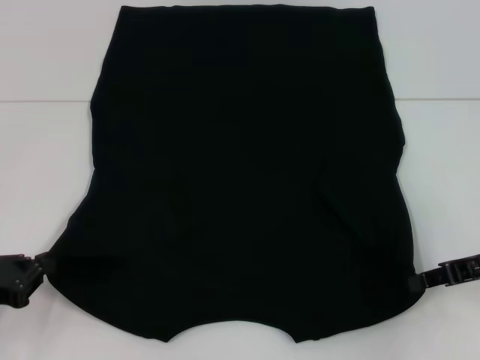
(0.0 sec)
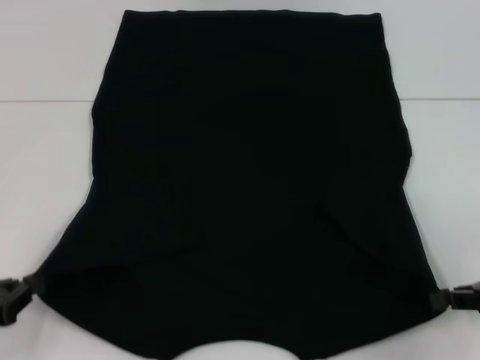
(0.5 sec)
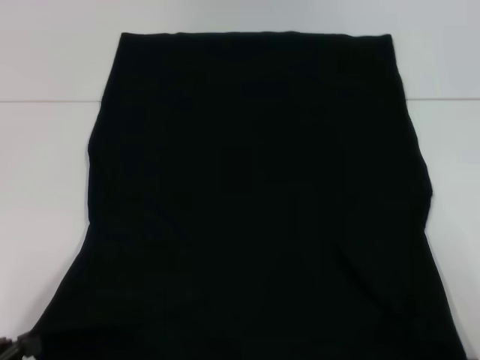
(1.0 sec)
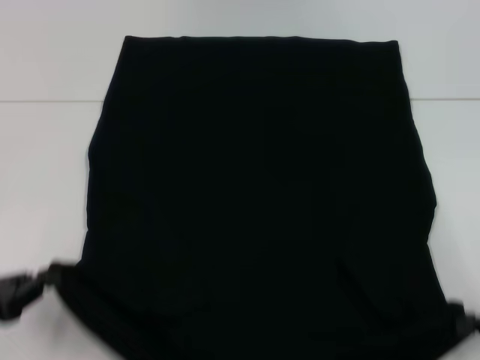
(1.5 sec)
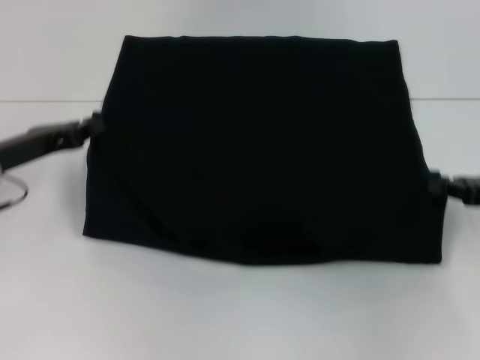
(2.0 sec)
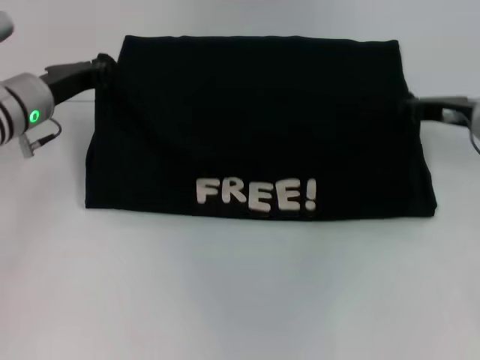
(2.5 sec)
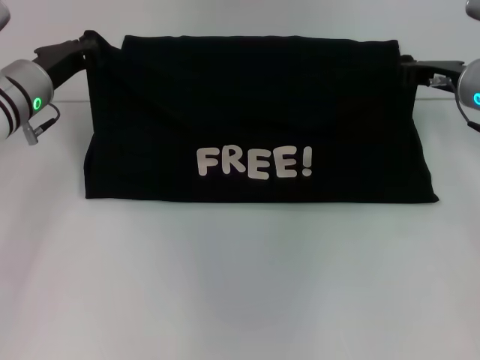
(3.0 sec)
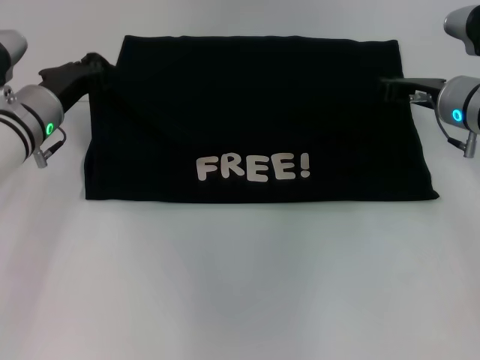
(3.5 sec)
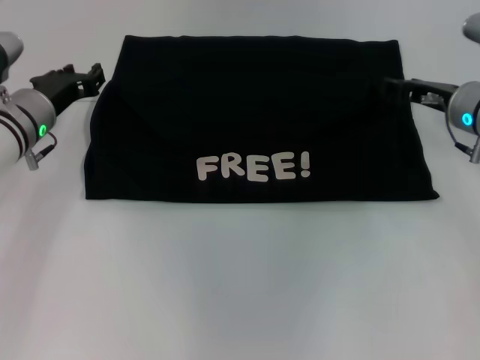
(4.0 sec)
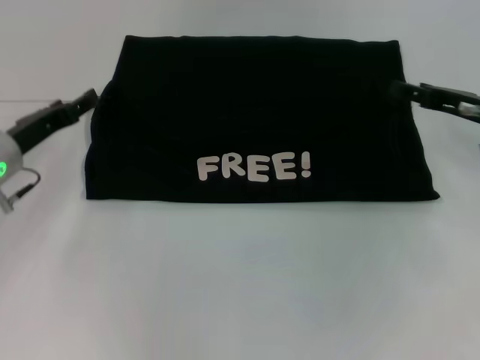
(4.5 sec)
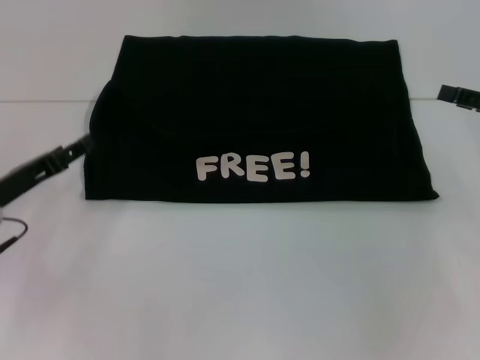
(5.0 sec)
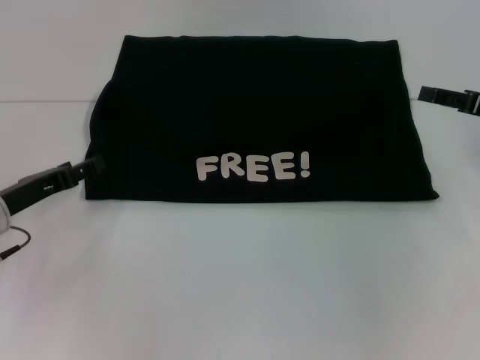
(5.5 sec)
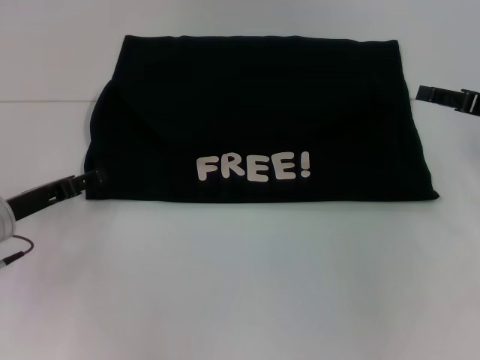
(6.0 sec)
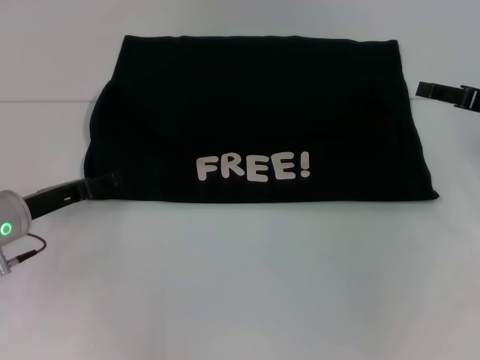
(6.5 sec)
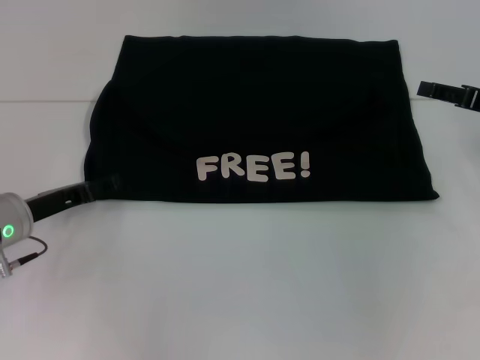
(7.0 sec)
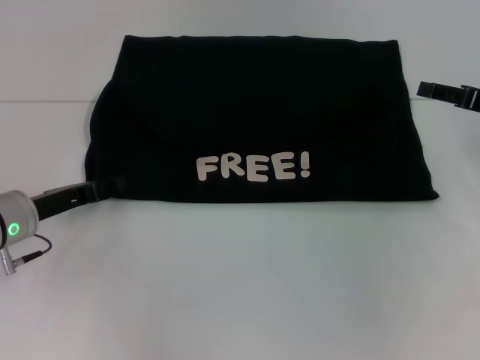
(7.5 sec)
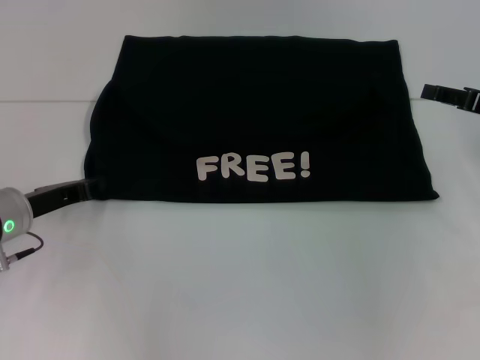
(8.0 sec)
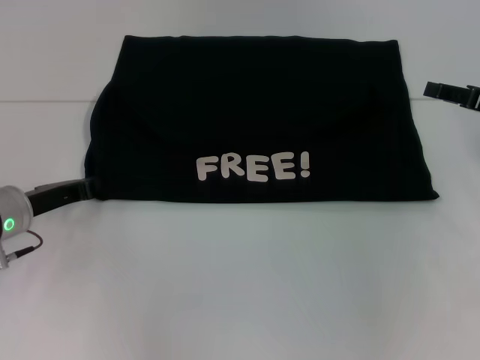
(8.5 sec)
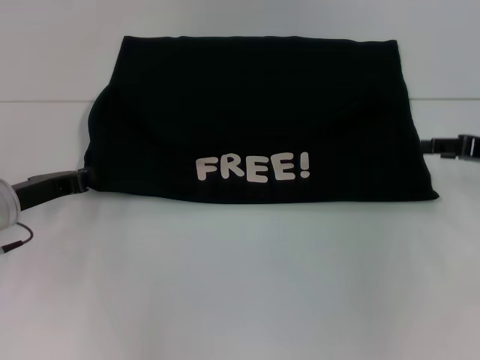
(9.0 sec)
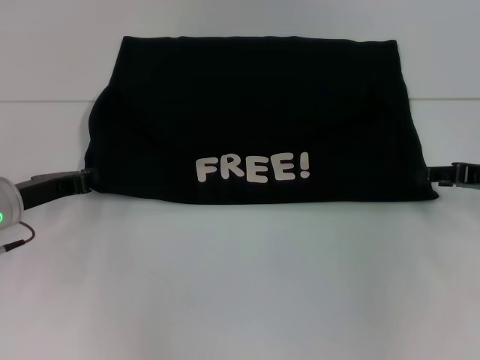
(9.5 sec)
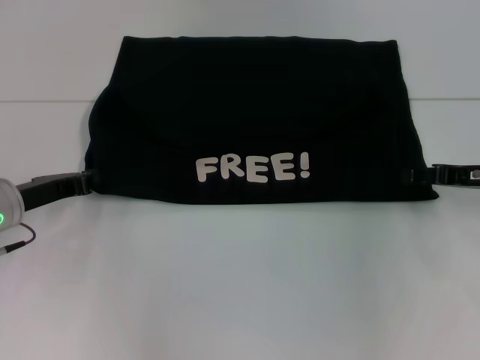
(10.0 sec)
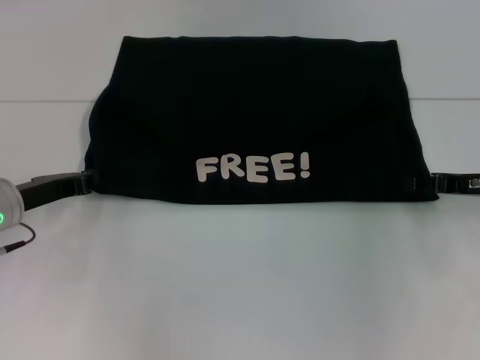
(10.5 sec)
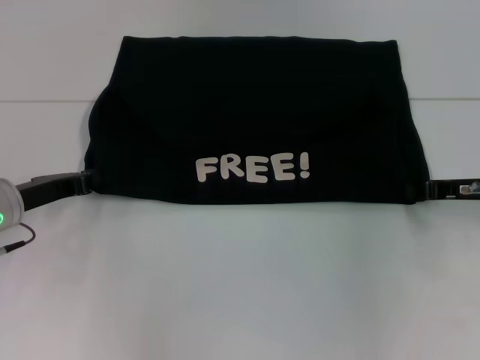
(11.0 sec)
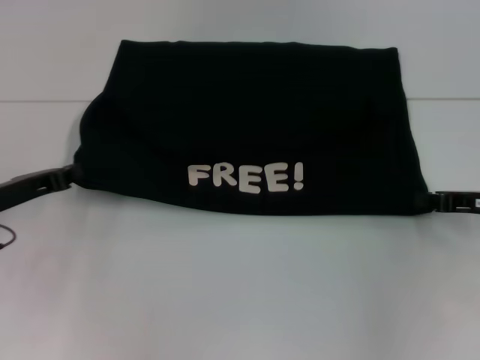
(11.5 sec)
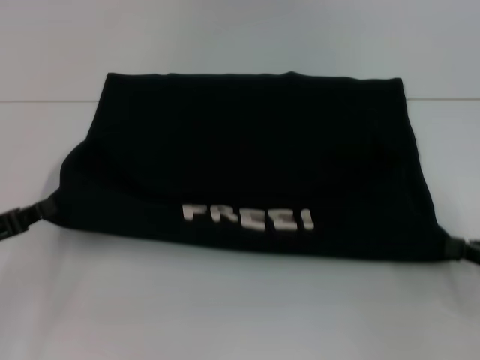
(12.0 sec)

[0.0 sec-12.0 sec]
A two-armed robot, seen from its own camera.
Step, 0.5 sec to 3.5 sec: Fold the clothes with your left hand.
Step, 0.5 sec to 3.5 sec: Fold the clothes with your right hand.
0.0 sec to 2.0 sec: The right gripper reaches approximately 10 cm backward, then returns; the left gripper heads forward, covering some 15 cm.
2.0 sec to 4.0 sec: The right gripper shifts approximately 15 cm forward and to the left, and opens up. The left gripper shifts some 10 cm forward and to the right, and opens.
4.0 sec to 6.0 sec: The left gripper travels backward by approximately 10 cm, and opens up; the right gripper travels to the right by some 10 cm.
6.0 sec to 8.0 sec: The grippers make only small movements.
8.0 sec to 10.0 sec: The left gripper closes its fingers.
10.0 sec to 12.0 sec: The left gripper shifts about 10 cm backward and to the left. Meanwhile the right gripper goes some 10 cm backward and to the right, and closes up.

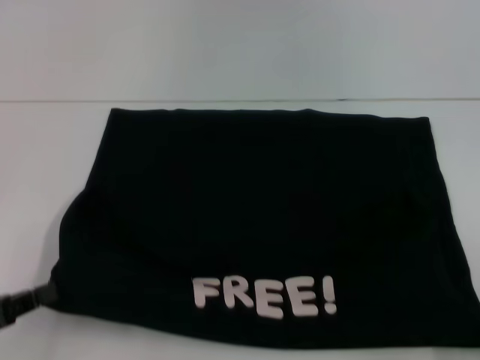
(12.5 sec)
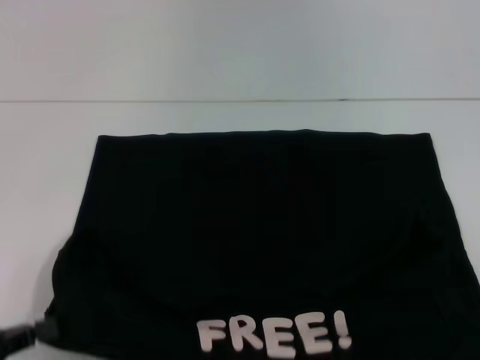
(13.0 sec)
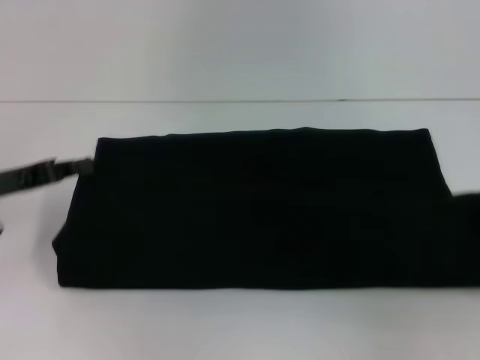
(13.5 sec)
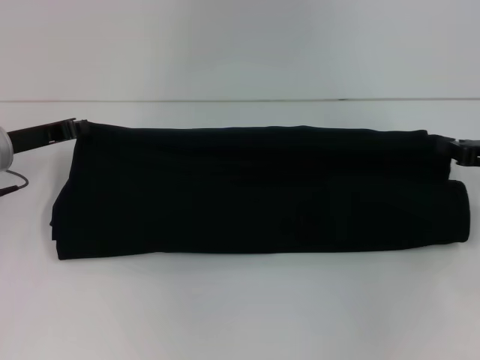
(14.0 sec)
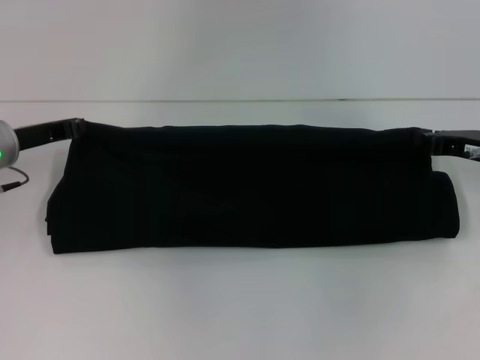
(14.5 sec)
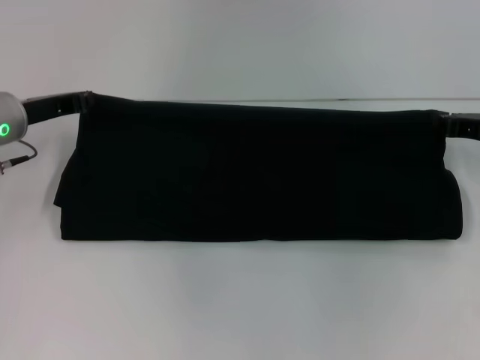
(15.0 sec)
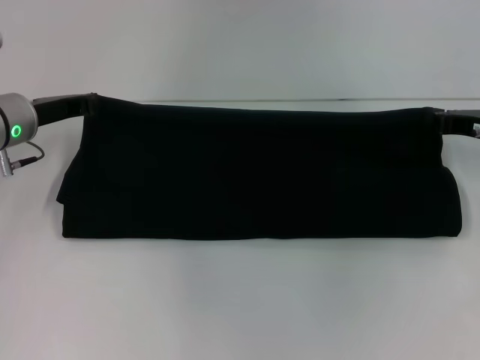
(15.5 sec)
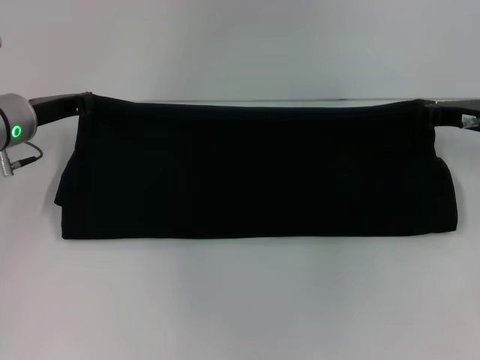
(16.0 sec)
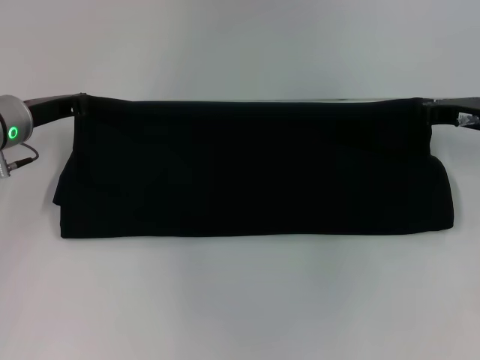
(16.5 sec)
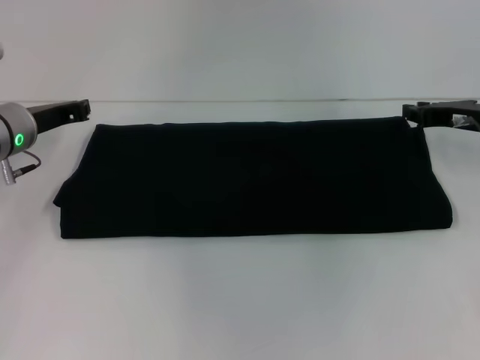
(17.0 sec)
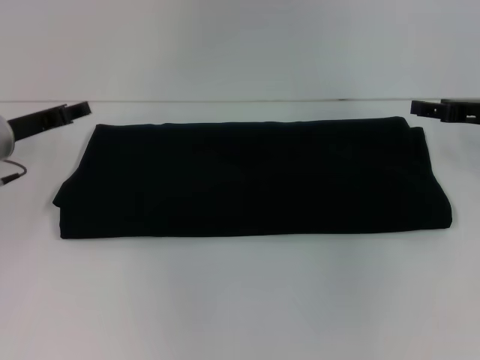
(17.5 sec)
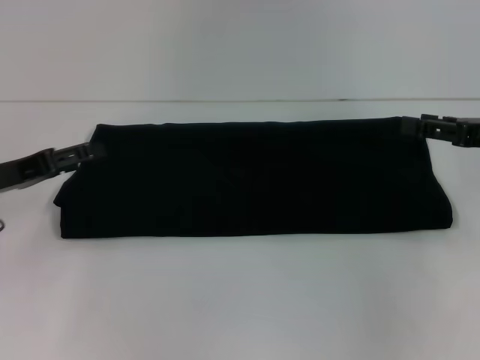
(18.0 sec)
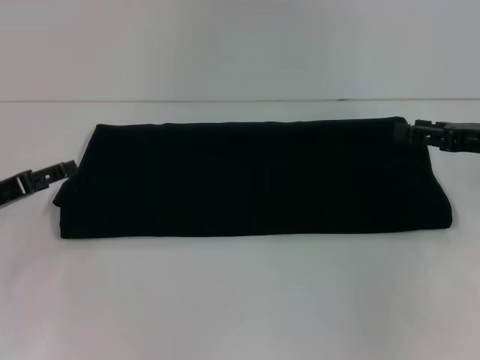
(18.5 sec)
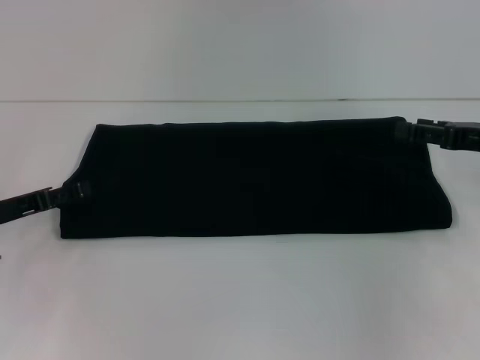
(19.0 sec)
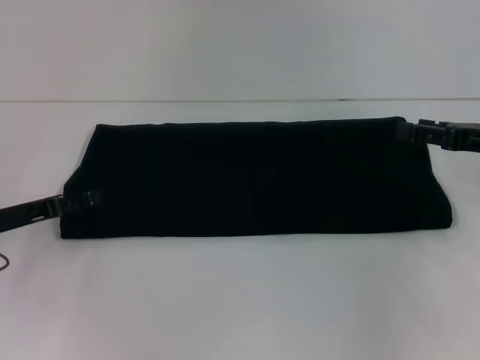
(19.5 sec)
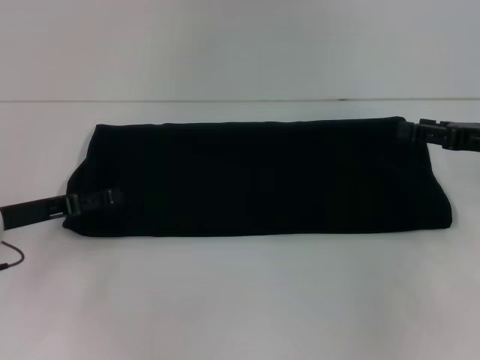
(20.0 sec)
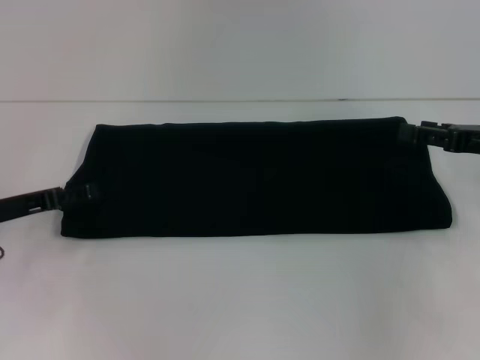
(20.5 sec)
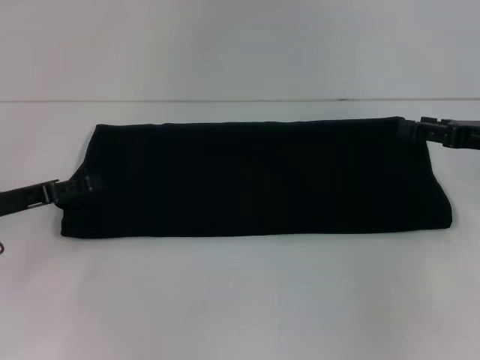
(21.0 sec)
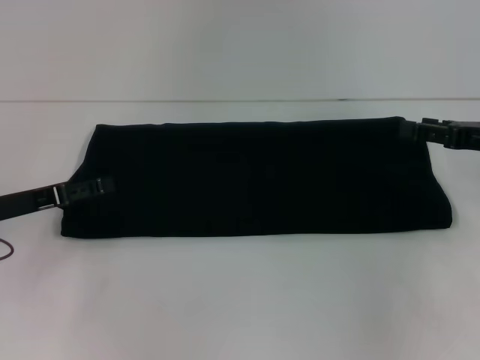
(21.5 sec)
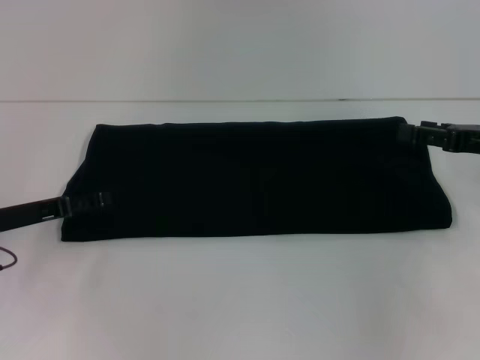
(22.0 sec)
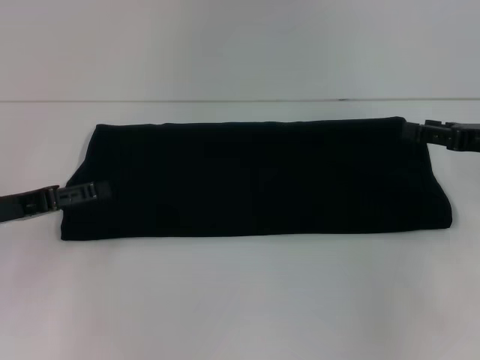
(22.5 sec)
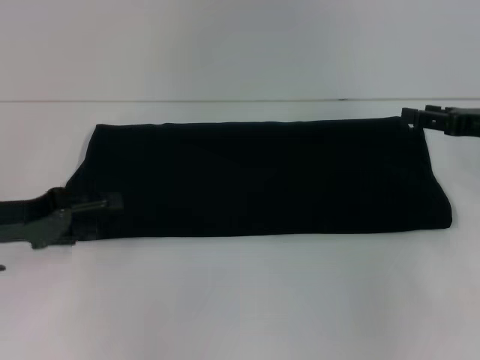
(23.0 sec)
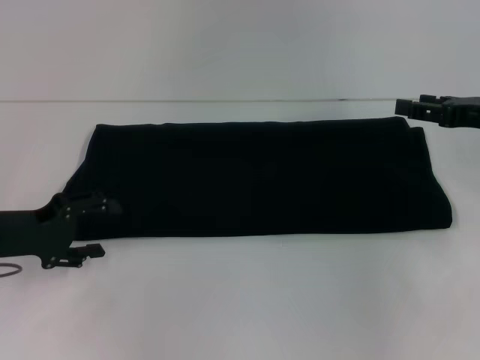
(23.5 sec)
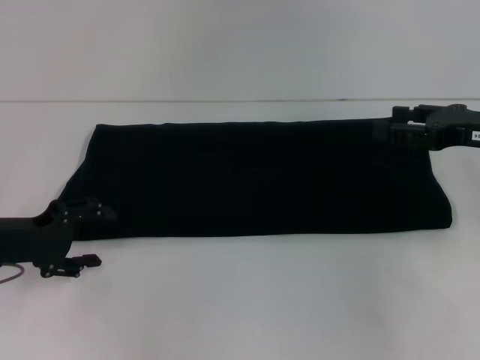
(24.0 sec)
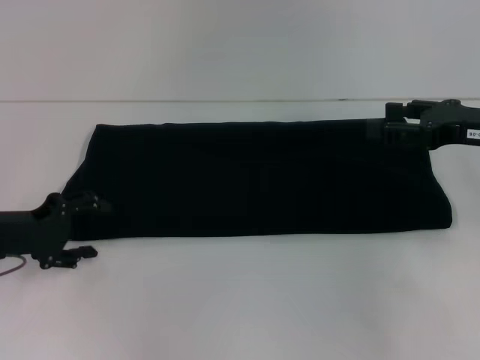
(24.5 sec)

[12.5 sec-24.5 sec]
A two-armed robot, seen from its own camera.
Step, 13.0 sec to 16.5 sec: Fold the clothes with your right hand.
12.5 sec to 14.5 sec: The left gripper moves forward, about 20 cm. Meanwhile the right gripper heads forward and to the left, covering some 25 cm.
14.5 sec to 16.5 sec: The grippers move only a little.
16.5 sec to 18.5 sec: The left gripper moves backward and to the left, roughly 15 cm, and opens its fingers. The right gripper travels backward by about 5 cm, and opens its fingers.
18.5 sec to 20.5 sec: The grippers move only a little.

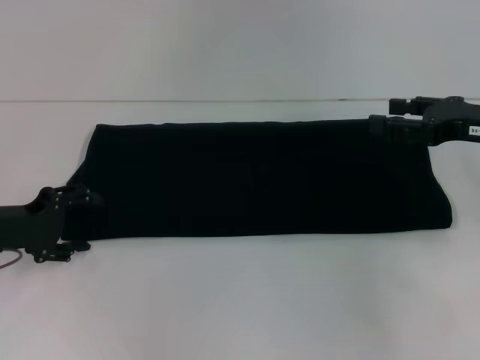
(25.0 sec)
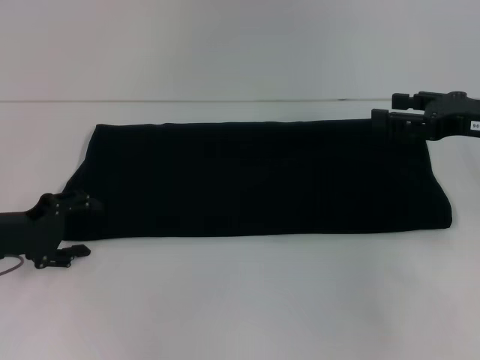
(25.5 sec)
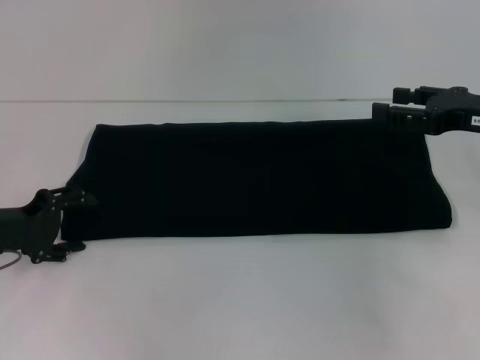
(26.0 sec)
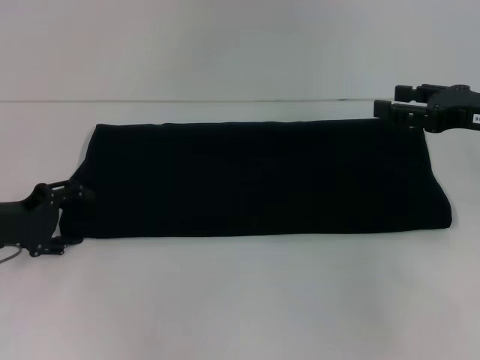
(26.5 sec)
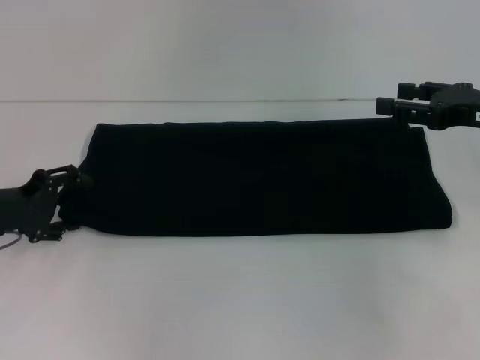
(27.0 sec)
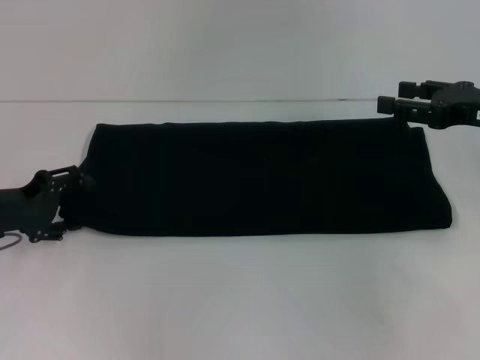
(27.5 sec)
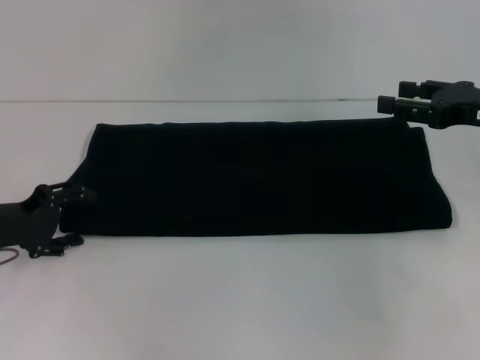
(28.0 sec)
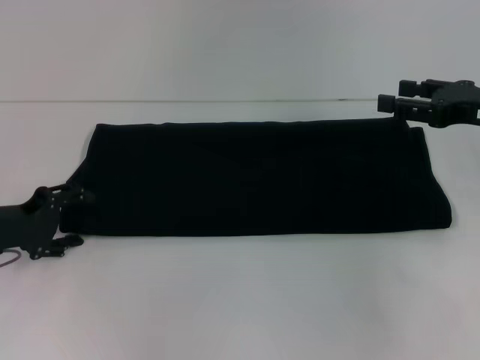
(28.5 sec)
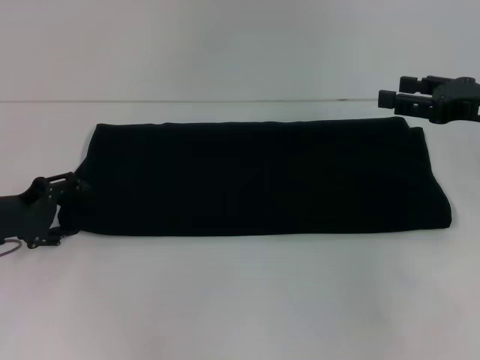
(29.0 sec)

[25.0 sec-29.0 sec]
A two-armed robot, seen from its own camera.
25.0 sec to 29.0 sec: The grippers move only a little.
